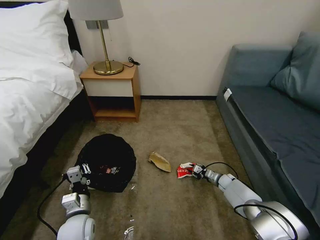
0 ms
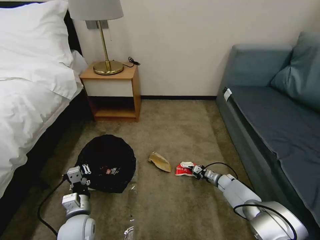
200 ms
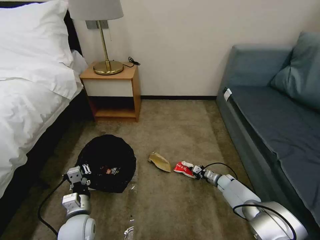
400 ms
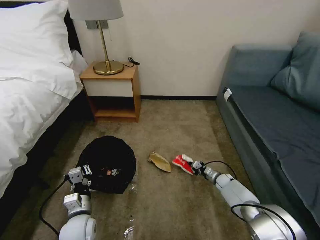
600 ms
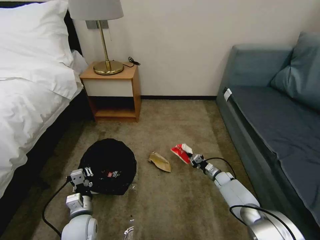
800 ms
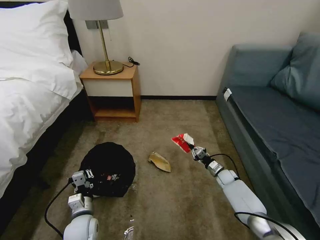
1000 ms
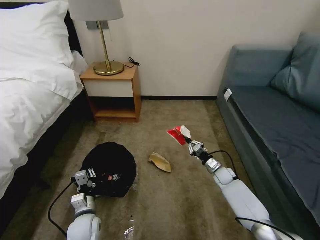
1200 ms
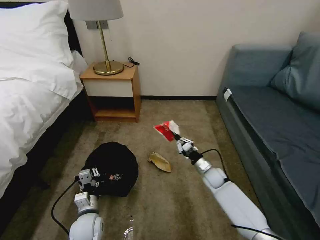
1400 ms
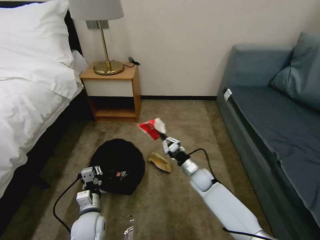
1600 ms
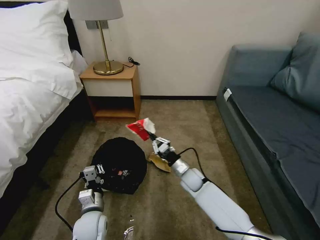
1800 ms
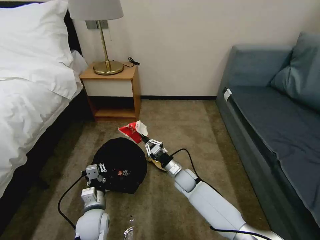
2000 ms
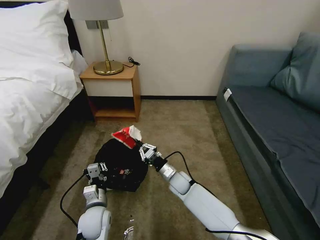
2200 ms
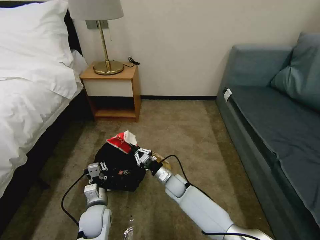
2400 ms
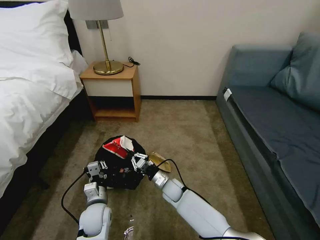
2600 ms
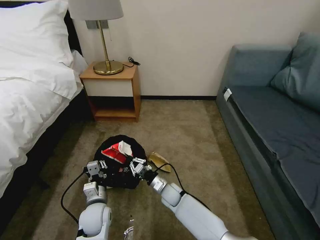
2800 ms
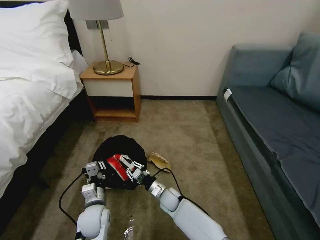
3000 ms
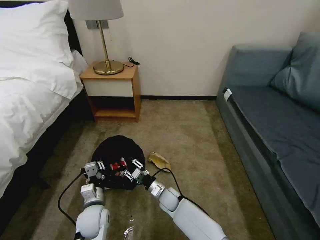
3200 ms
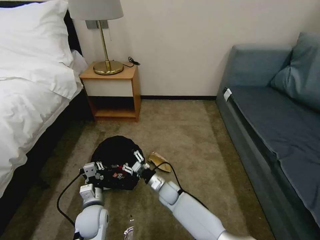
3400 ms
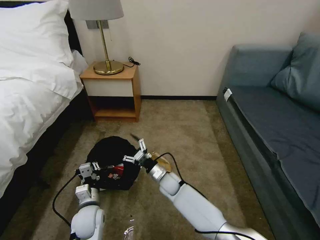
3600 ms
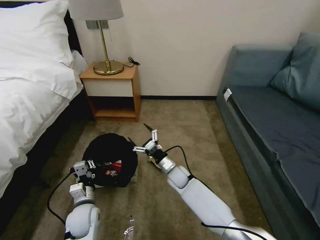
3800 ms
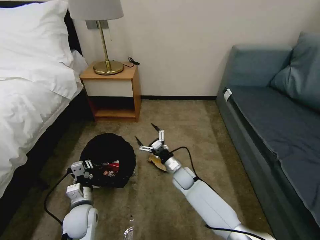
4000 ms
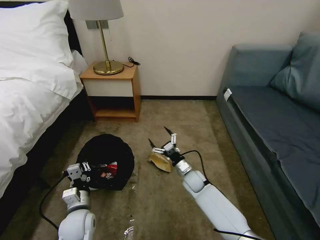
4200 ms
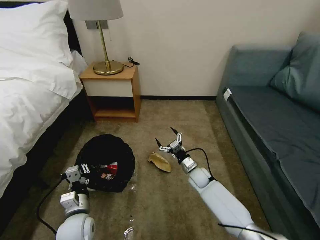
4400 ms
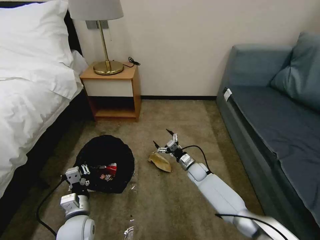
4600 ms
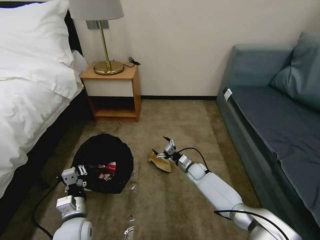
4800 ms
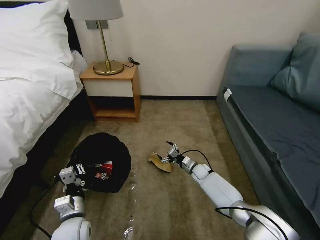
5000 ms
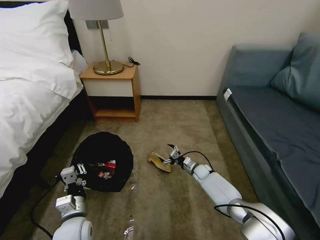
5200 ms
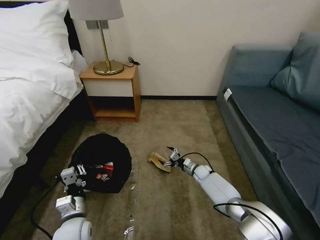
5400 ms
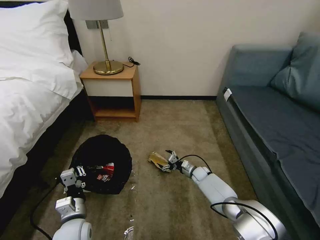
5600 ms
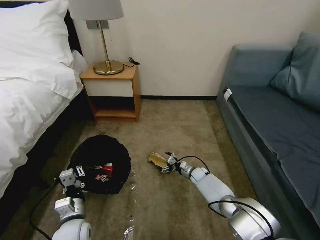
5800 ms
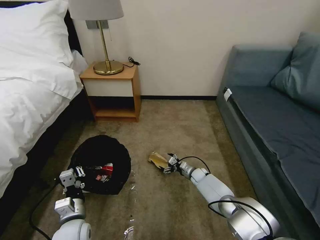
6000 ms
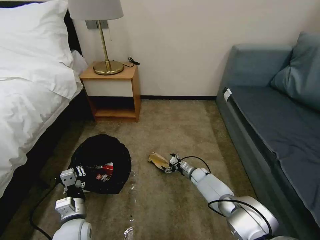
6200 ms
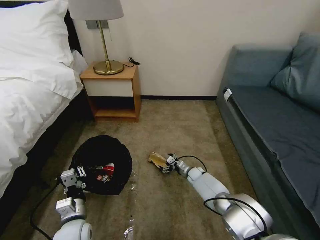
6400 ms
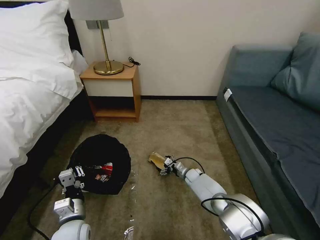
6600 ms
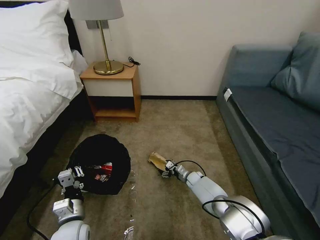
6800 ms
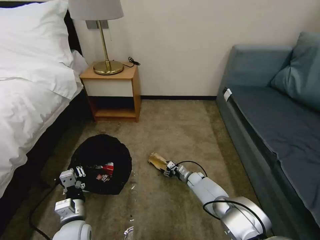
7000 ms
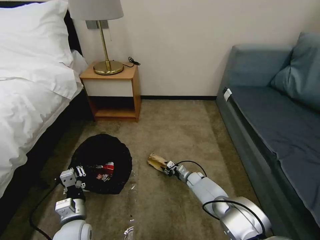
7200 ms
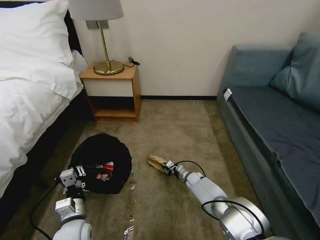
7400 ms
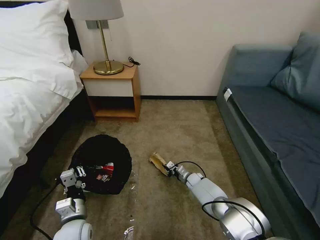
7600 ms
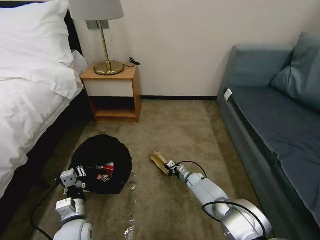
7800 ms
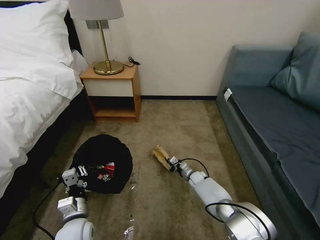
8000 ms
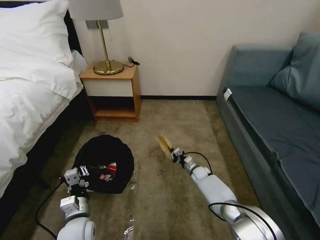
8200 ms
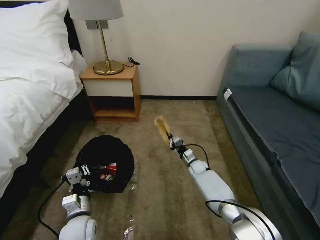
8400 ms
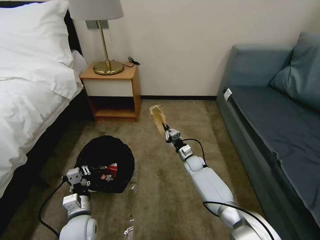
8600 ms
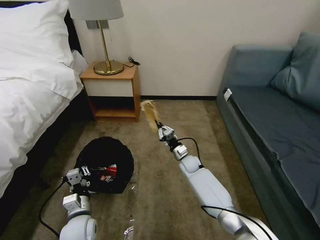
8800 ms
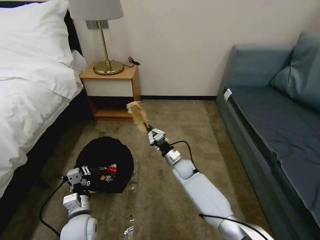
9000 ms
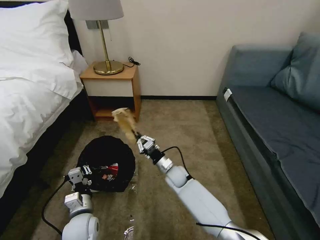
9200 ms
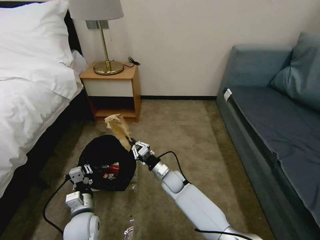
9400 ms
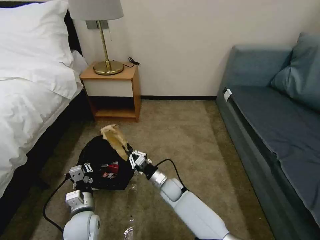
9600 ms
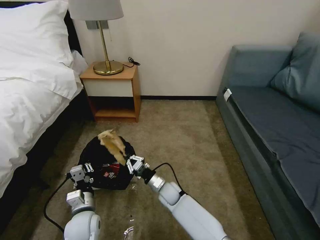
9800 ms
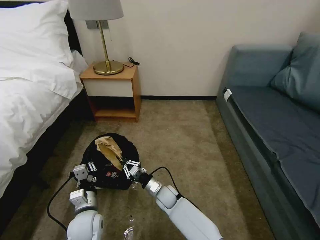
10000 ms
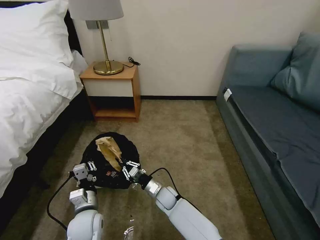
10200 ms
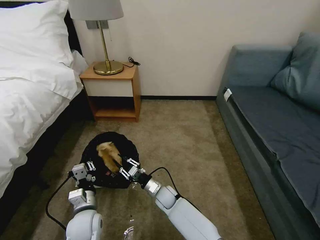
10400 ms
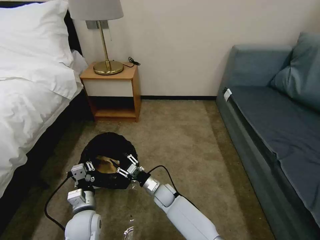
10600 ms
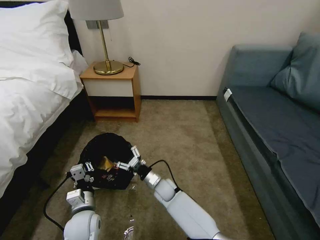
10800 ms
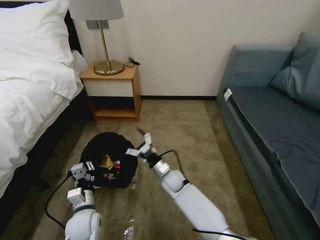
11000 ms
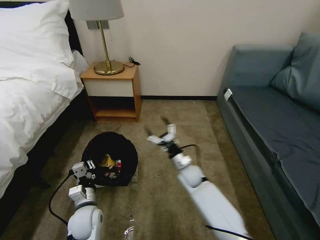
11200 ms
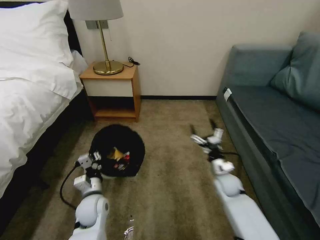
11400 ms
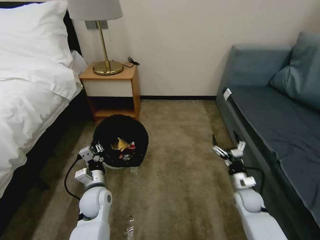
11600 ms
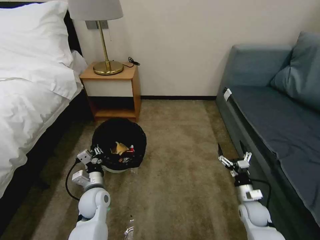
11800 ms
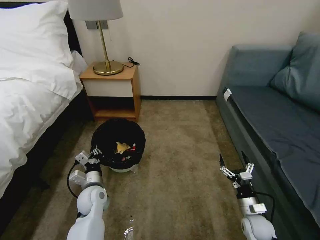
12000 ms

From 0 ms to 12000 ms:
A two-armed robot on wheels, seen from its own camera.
Task of the whole recording: Pick up the trash bin, then pick up the garbage on the floor and place it into the trash bin.
From 0 ms to 1600 ms: The right gripper heads to the left and upward, covering about 20 cm.
From 1600 ms to 3000 ms: The right gripper heads to the left, downward and backward, covering roughly 15 cm.
From 3000 ms to 4400 ms: The left gripper changes place by approximately 5 cm. The right gripper travels to the right and forward by about 15 cm, and opens up.
From 4400 ms to 6000 ms: The right gripper goes some 10 cm downward.
From 6000 ms to 7600 ms: The right gripper closes.
From 7600 ms to 9000 ms: The right gripper heads upward and to the left, covering about 15 cm.
From 9000 ms to 10400 ms: The right gripper is displaced backward, to the left and downward by some 15 cm.
From 10400 ms to 12000 ms: The right gripper travels to the right by some 35 cm, and opens its fingers. The left gripper heads forward, covering about 10 cm.

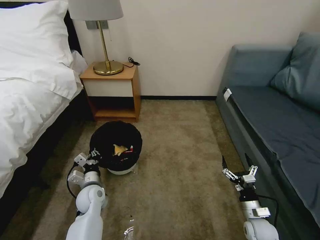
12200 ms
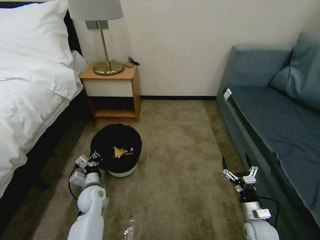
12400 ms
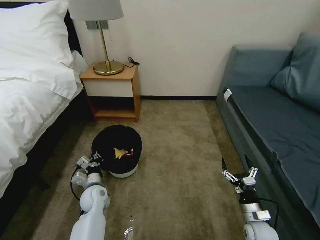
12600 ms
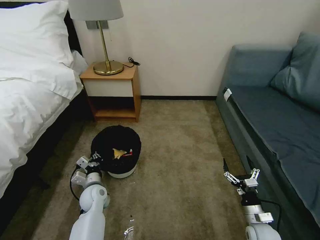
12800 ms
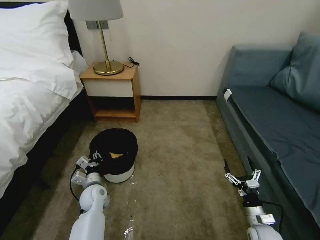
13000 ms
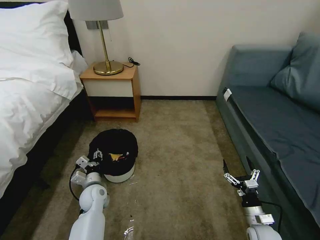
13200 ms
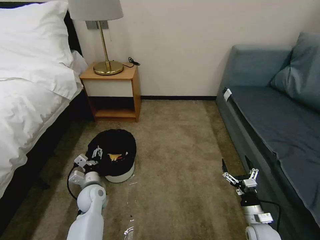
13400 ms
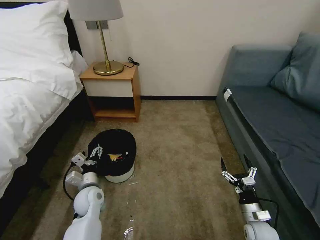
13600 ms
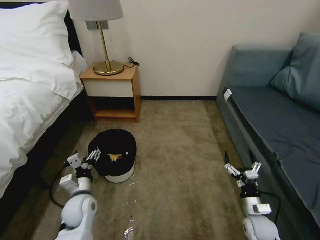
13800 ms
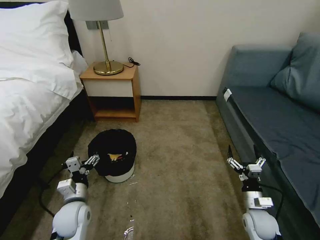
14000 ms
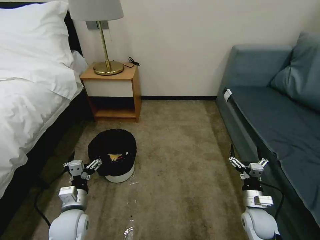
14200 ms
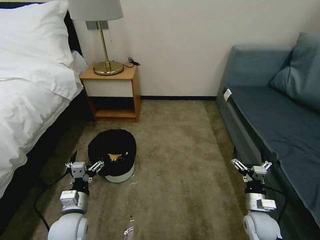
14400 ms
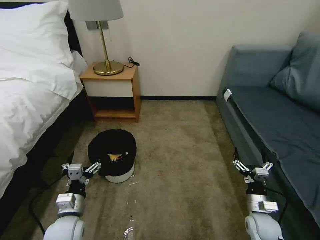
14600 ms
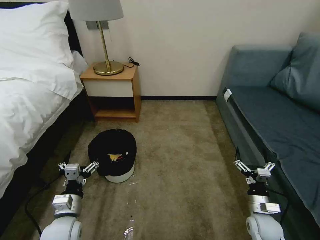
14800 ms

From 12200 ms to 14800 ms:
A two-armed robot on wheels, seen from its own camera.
Task of the whole recording: Pick up the trash bin, then pick up the garbage on the floor and place it into the trash bin.
From 12200 ms to 13400 ms: The left gripper opens up.
From 13400 ms to 14800 ms: The left gripper goes about 15 cm backward and upward.

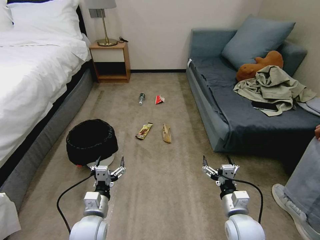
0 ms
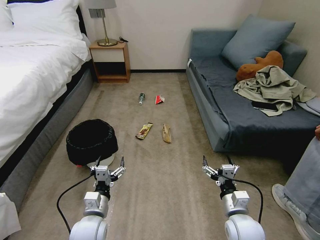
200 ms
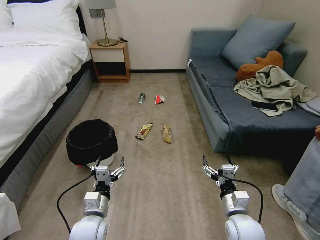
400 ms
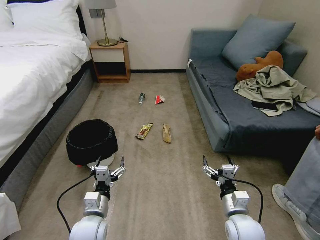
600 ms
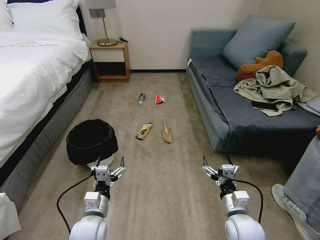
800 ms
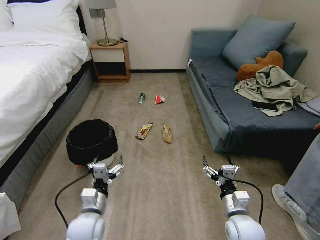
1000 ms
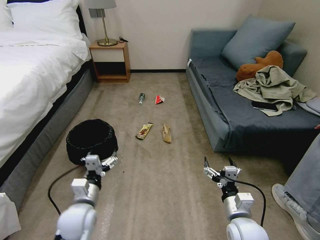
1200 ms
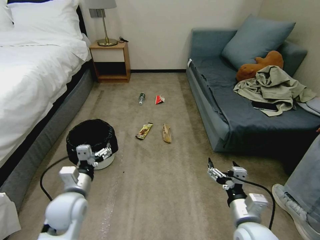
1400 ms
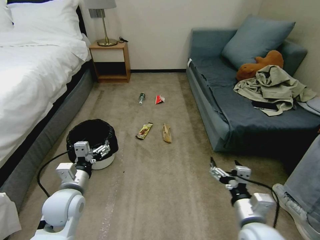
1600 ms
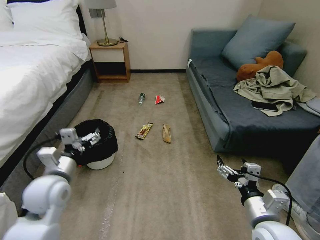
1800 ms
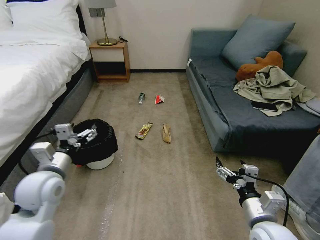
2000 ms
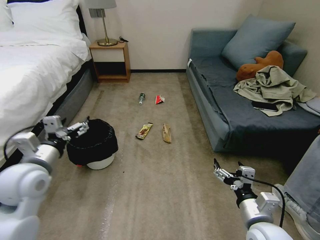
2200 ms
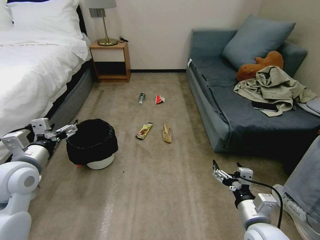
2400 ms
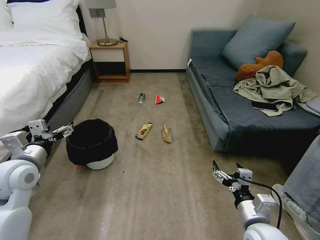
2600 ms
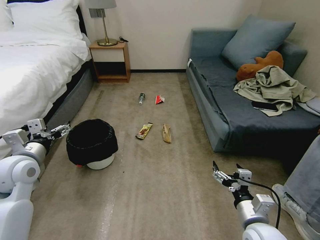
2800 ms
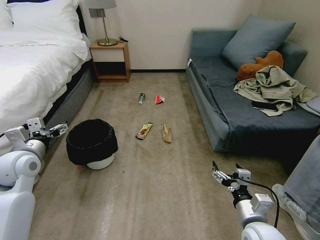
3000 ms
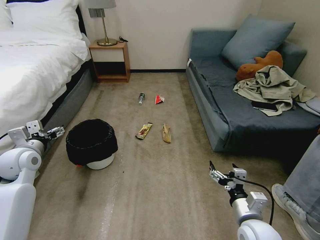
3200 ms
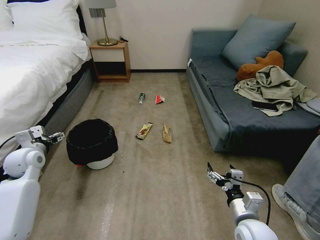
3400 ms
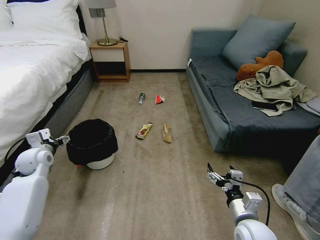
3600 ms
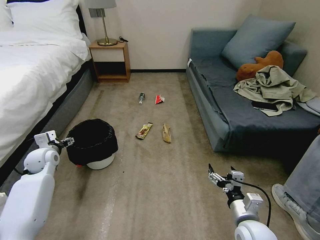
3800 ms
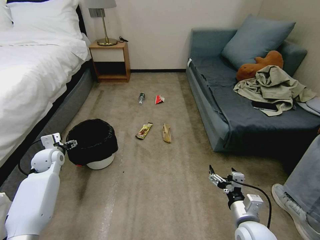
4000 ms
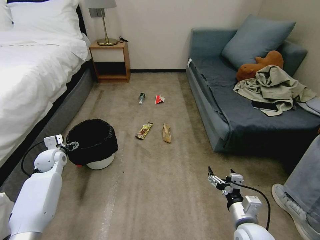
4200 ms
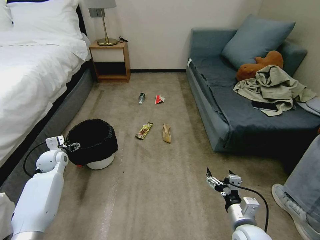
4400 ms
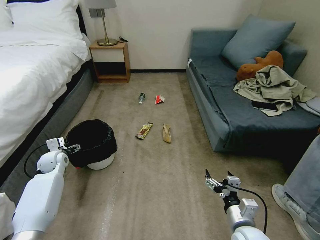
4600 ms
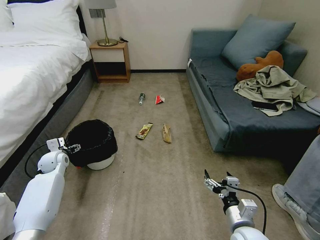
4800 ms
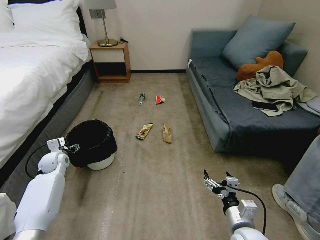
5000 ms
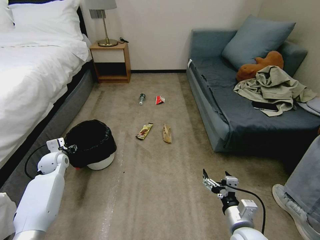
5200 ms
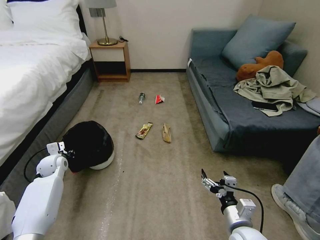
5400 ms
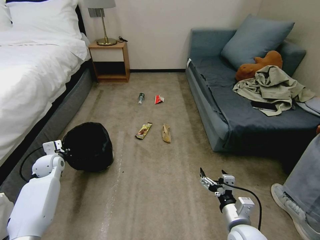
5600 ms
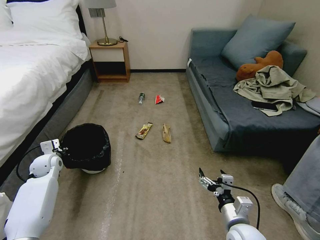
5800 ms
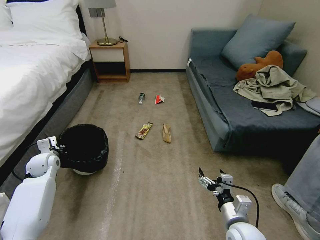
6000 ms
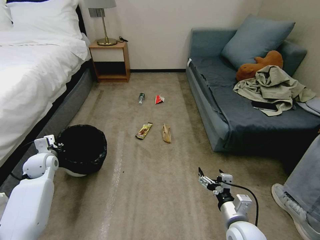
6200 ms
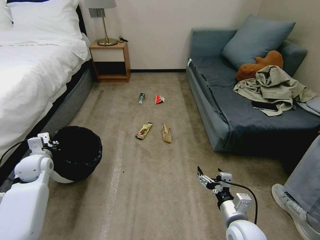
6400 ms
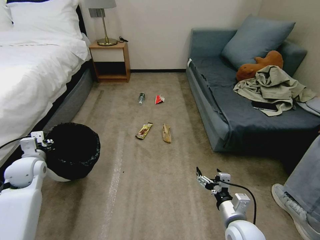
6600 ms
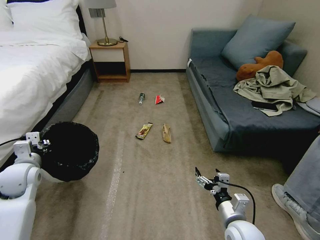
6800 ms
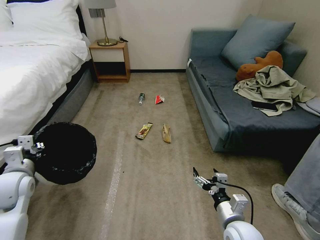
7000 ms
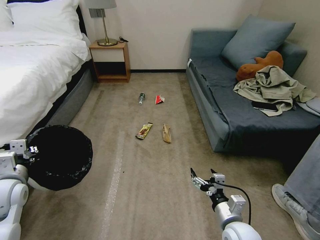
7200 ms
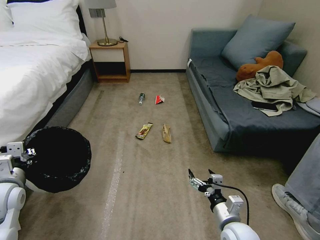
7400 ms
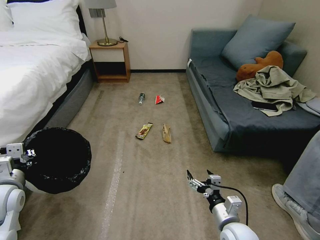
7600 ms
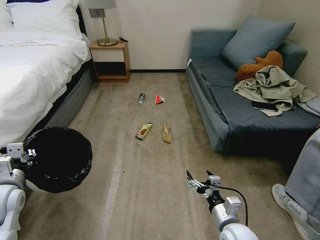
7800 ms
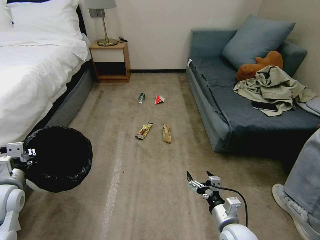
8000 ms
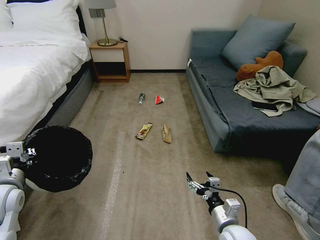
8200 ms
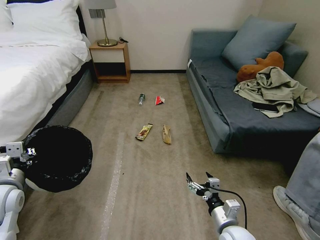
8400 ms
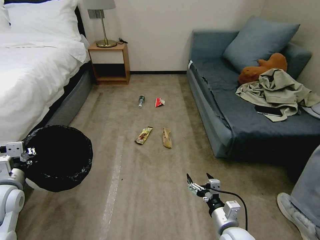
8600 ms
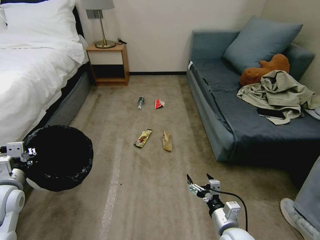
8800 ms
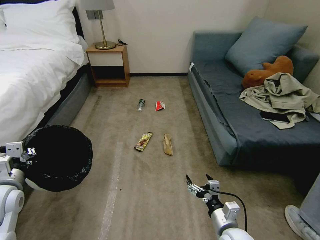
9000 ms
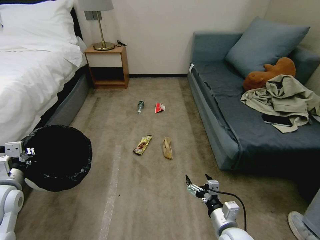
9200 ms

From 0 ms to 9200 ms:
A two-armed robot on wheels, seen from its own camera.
Task of the whole recording: Pick up the trash bin, then pick up the garbage on the floor and place it into the trash bin.
From 1600 ms to 3000 ms: The left gripper shifts some 15 cm to the left, upward and forward.
From 3000 ms to 4600 ms: The left gripper heads downward and forward, covering about 20 cm.
From 4600 ms to 6200 ms: The left gripper closes its fingers.
From 6200 ms to 7600 ms: The left gripper goes some 15 cm backward and upward.
